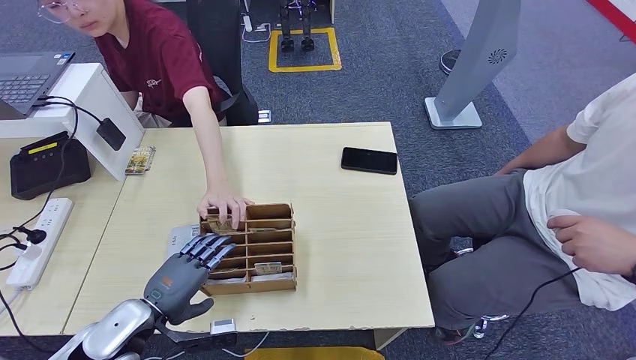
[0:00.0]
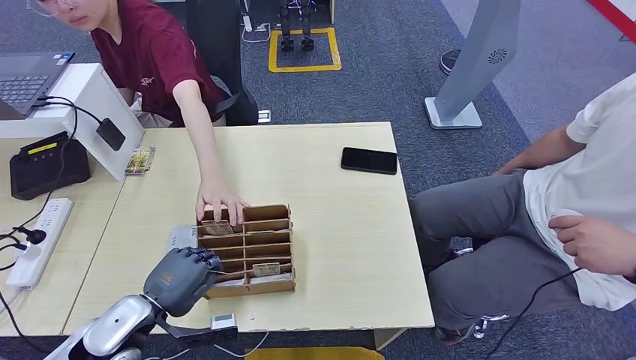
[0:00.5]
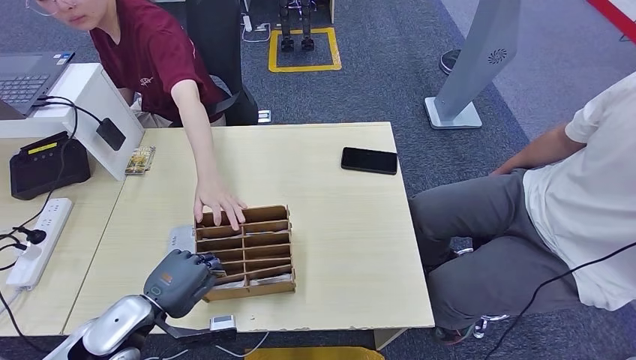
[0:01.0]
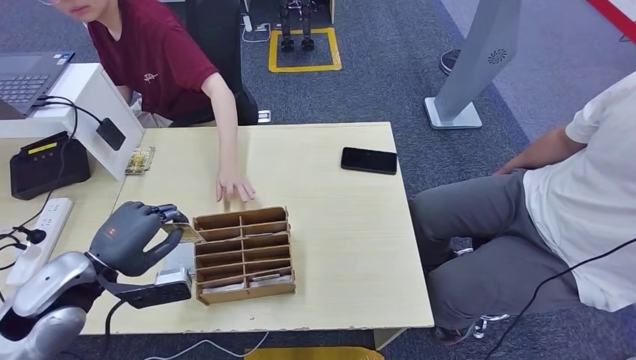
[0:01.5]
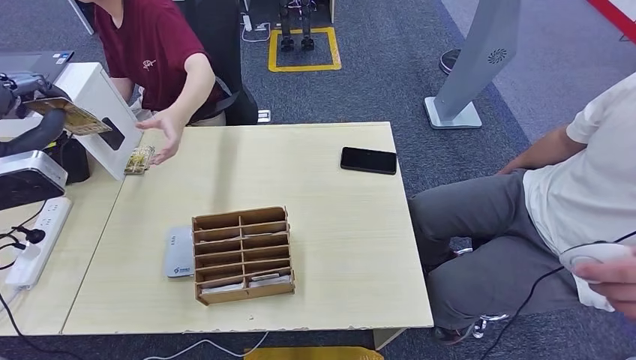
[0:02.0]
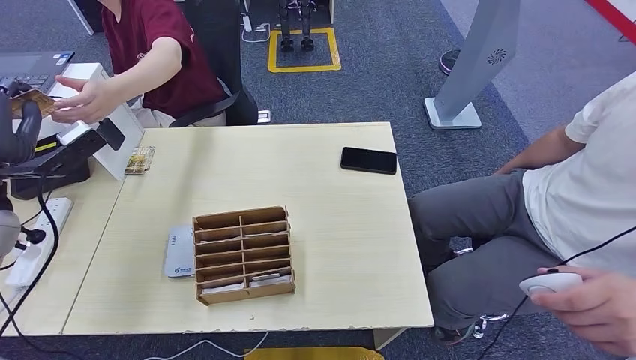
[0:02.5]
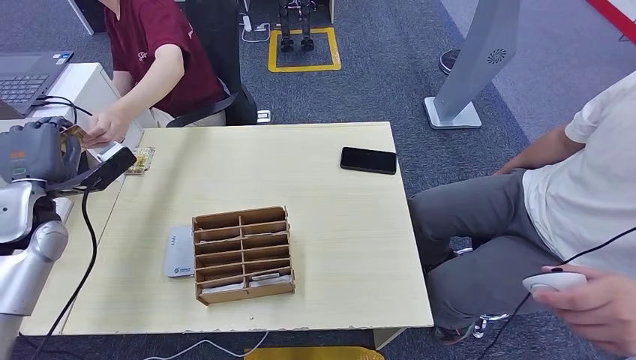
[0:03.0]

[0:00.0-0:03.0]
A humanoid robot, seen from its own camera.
Step, 0:01.5 to 0:03.0: Hand the room key to the person.
0:00.0 to 0:01.5: The left hand heads upward and to the left, covering approximately 10 cm.
